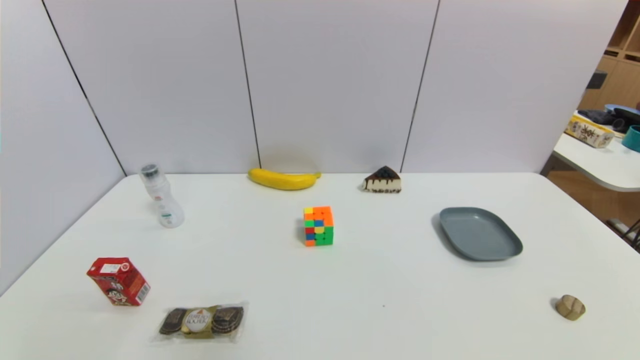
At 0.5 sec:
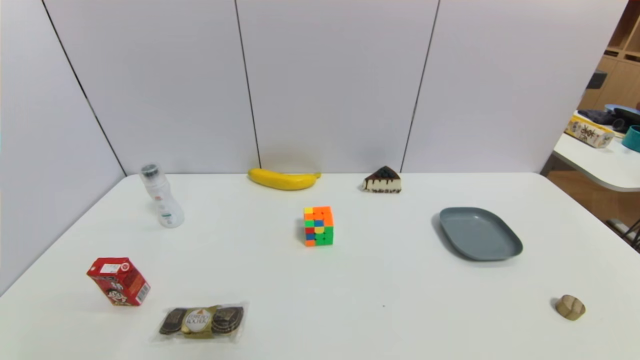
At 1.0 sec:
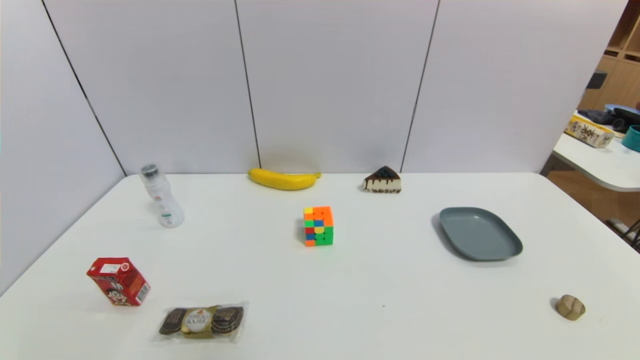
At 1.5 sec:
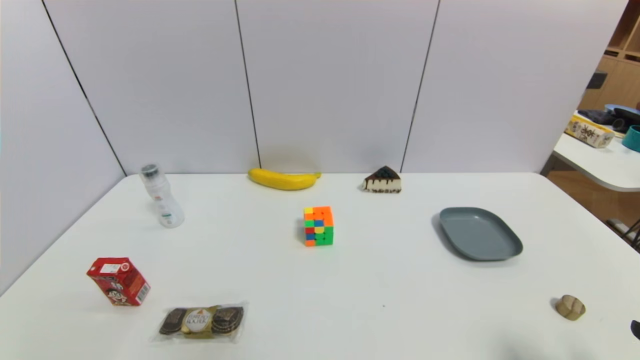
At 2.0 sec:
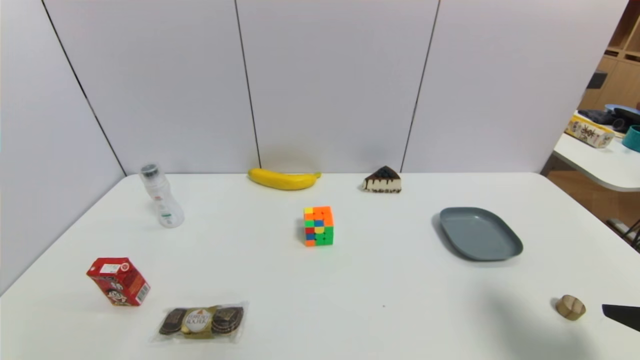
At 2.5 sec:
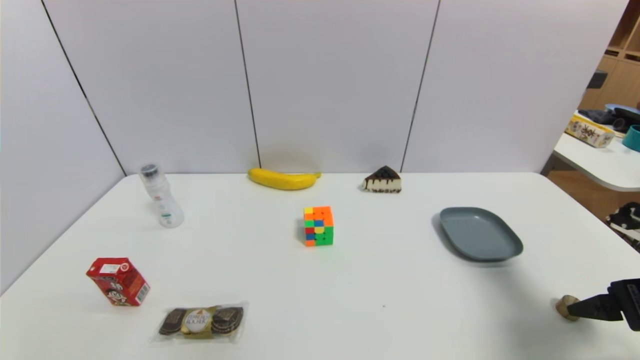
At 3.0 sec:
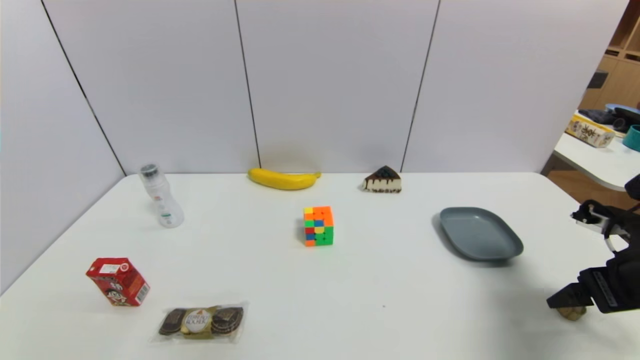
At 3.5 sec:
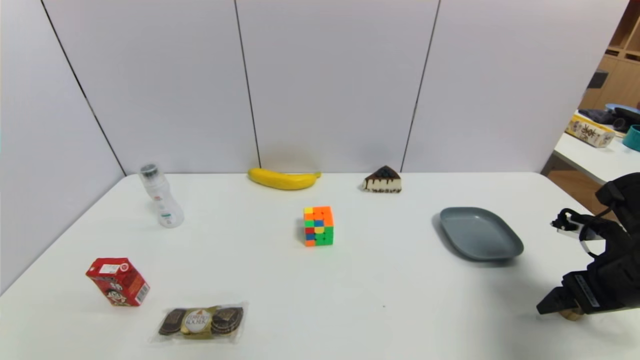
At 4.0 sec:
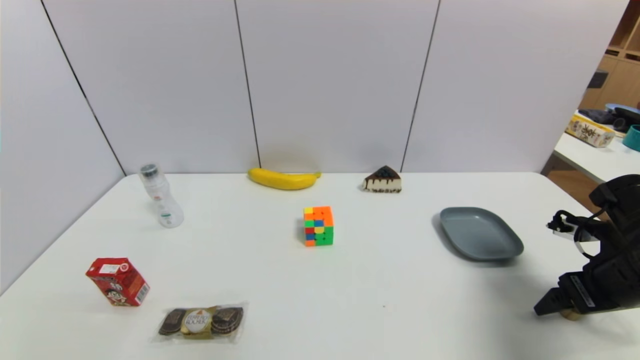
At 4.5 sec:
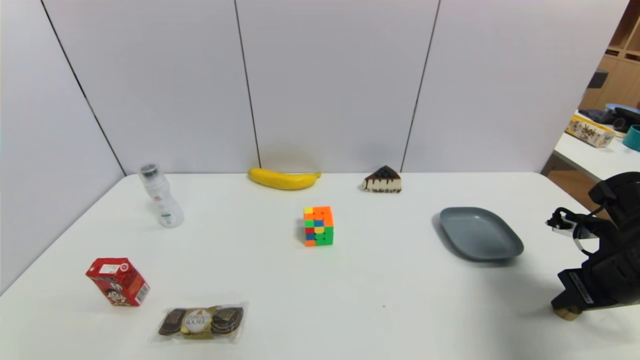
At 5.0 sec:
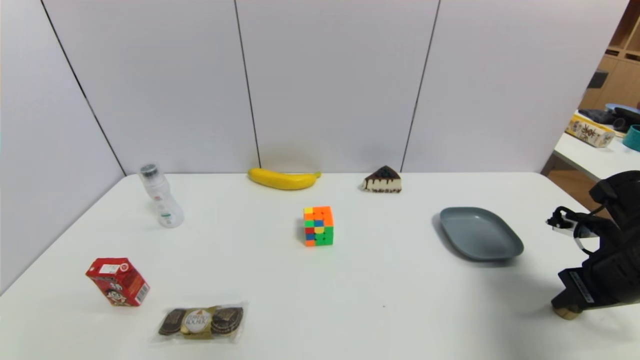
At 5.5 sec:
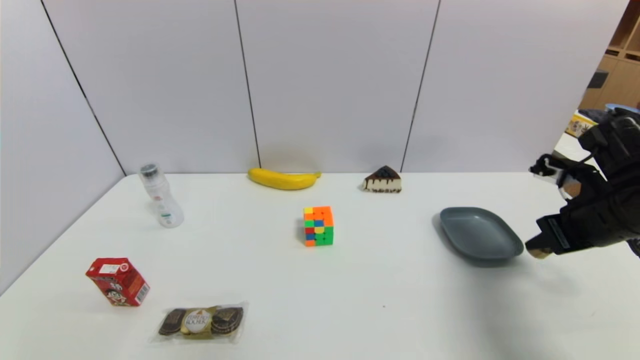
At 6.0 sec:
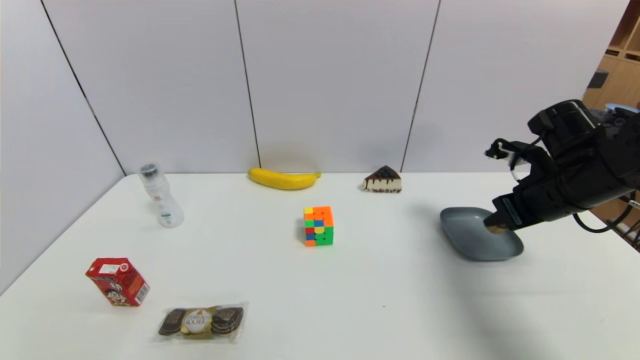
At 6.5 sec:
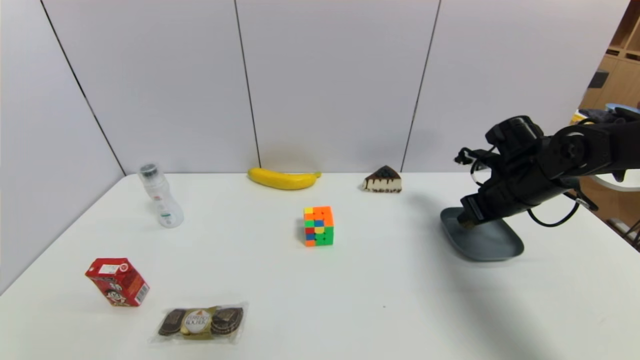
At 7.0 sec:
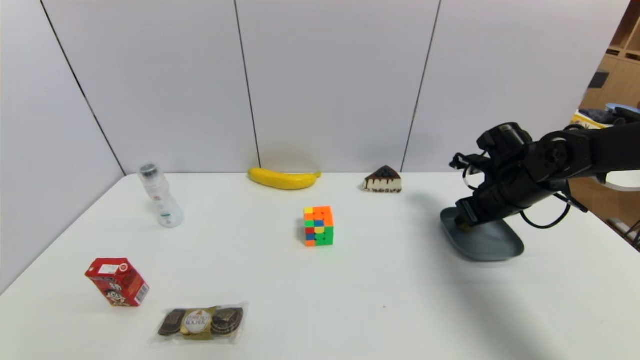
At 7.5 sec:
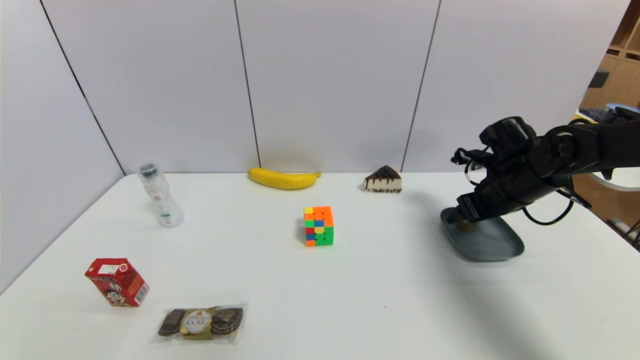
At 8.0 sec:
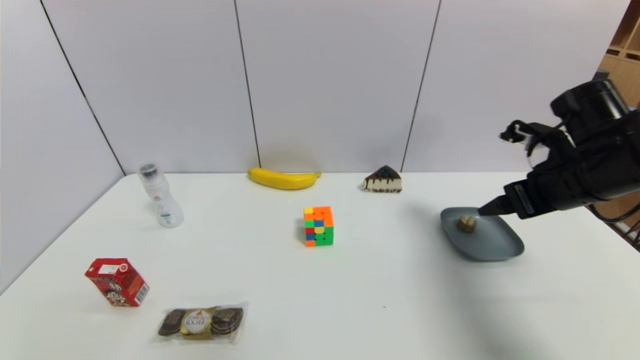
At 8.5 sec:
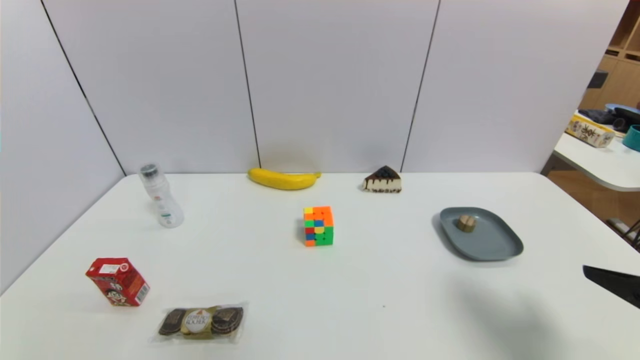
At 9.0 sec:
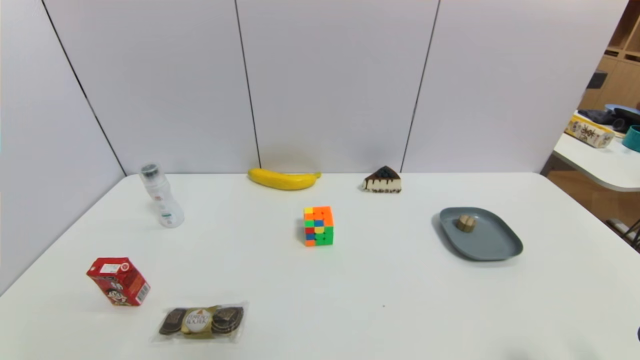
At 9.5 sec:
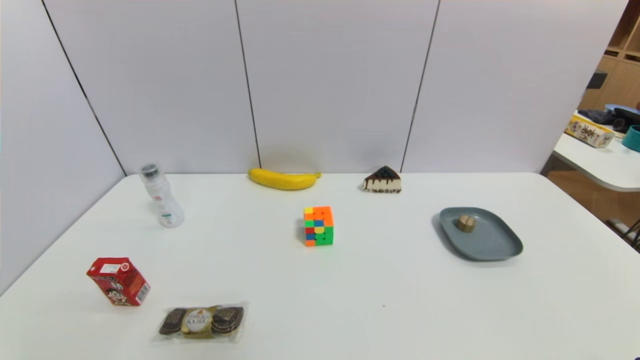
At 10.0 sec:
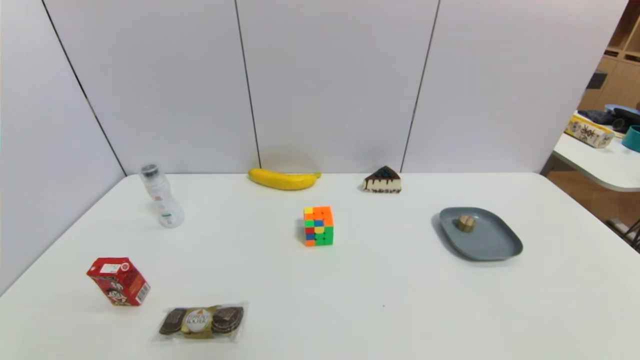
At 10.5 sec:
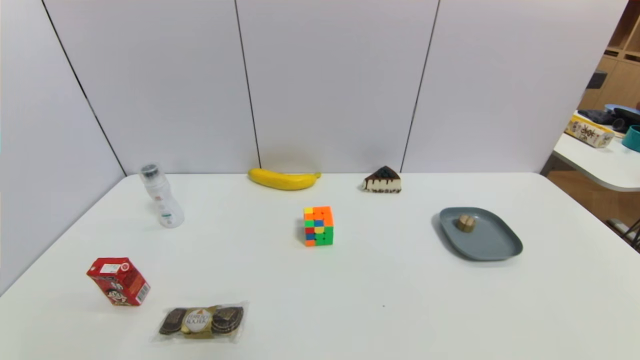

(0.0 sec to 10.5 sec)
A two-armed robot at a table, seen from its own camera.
Task of the whole recording: use a gripper to pick the target object and place on the dish.
Step, 0.0 sec - 4.5 sec: Grasp the round wooden block with the right gripper.
Step, 5.0 sec - 7.5 sec: Place the round wooden block on the dish with the right gripper.
0.0 sec - 2.0 sec: The right gripper travels upward and forward by about 20 cm.
2.0 sec - 4.0 sec: The right gripper travels forward and downward by roughly 15 cm.
4.0 sec - 6.5 sec: The right gripper goes roughly 15 cm forward and to the left, and closes up.
6.5 sec - 8.5 sec: The right gripper heads backward, covering approximately 25 cm, and opens.
8.5 sec - 10.5 sec: The right gripper goes roughly 20 cm downward and backward.
